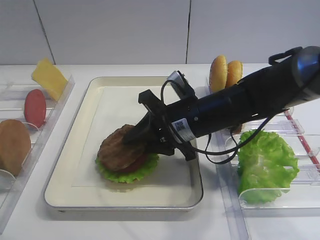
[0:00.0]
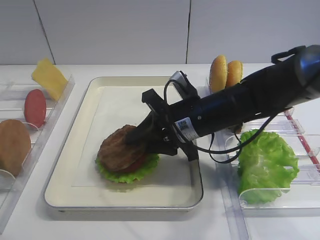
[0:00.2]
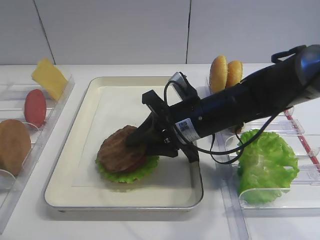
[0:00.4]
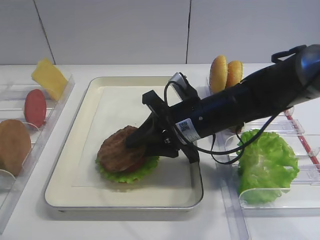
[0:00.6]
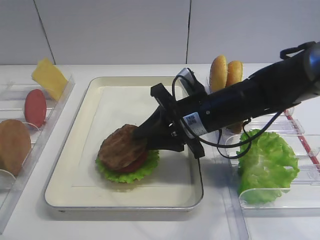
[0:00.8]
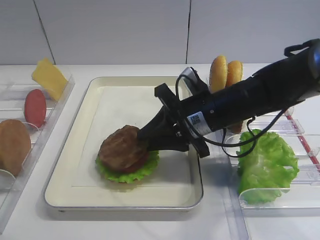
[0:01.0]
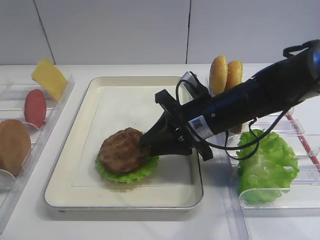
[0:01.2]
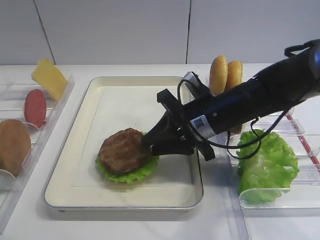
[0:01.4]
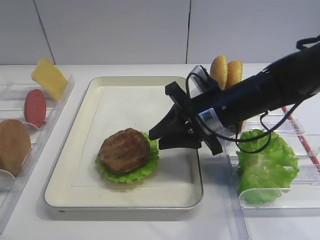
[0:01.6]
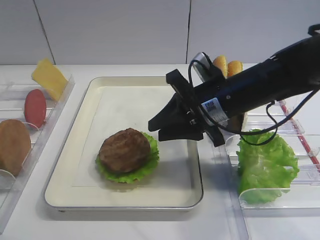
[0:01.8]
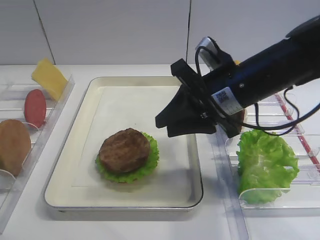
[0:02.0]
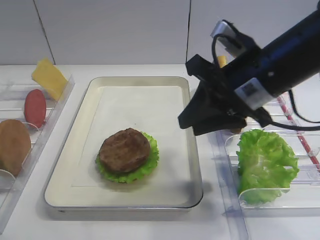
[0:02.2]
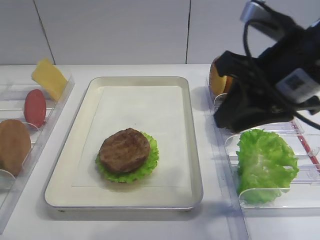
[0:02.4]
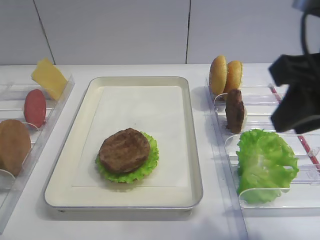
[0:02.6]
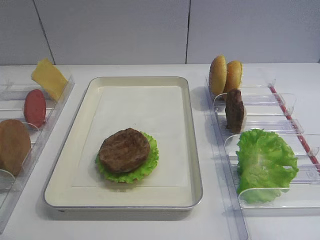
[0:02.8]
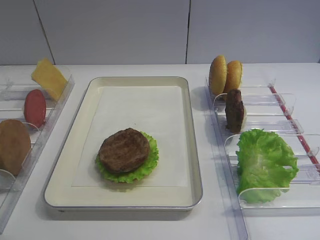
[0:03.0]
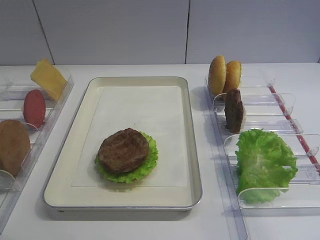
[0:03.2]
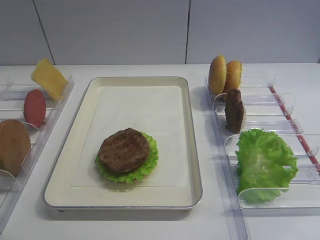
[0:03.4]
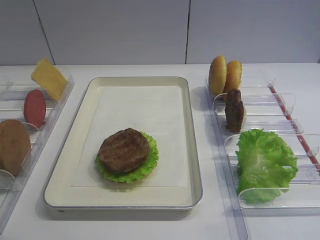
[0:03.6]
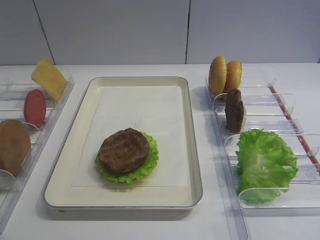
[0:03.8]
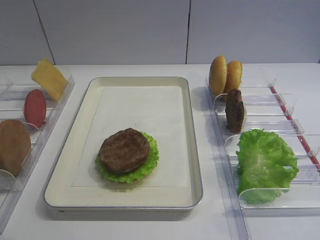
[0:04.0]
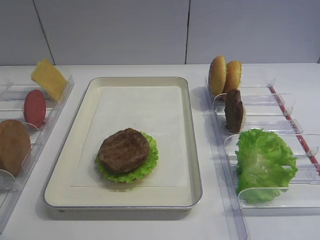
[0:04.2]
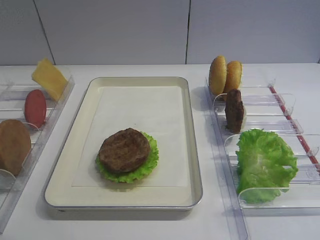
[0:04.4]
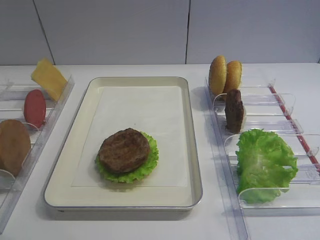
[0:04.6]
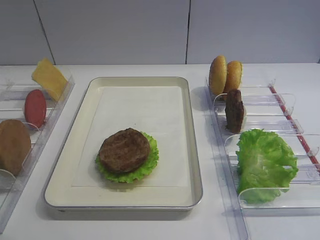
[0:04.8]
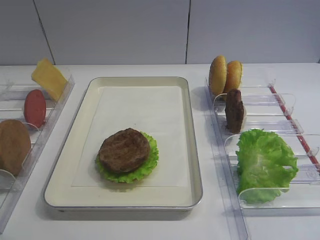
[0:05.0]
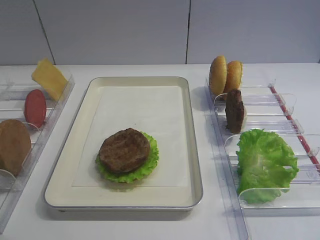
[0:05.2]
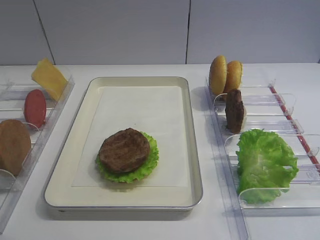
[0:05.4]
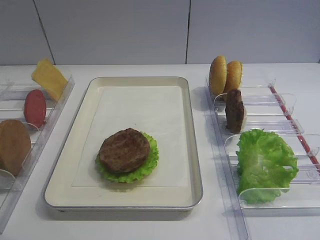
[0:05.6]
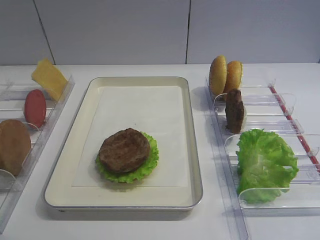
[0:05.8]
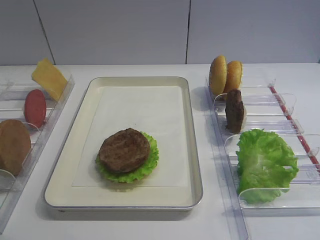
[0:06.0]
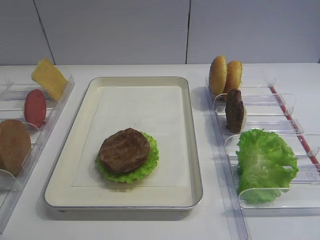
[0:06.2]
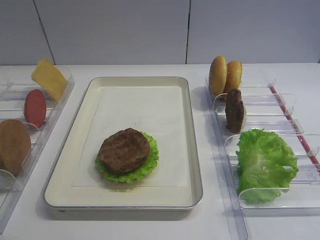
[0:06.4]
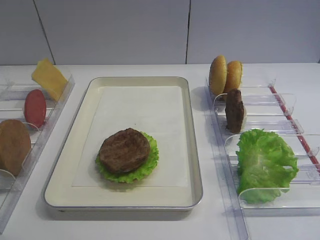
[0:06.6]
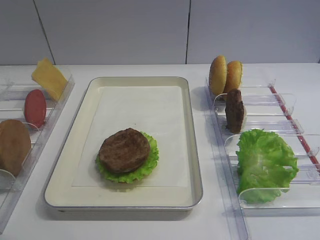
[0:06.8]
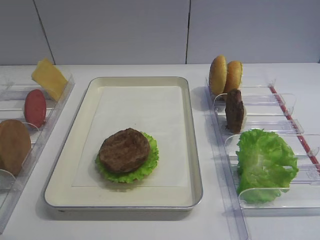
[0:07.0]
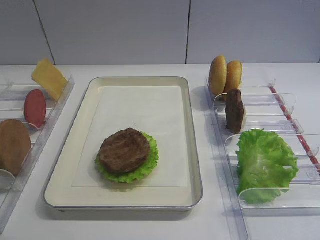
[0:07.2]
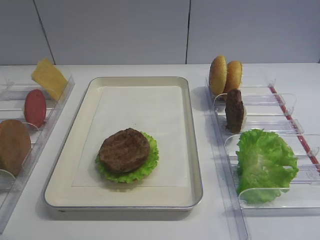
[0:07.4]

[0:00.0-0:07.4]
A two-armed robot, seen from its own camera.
0:00.0 to 0:01.4: The grippers move only a little.
0:01.4 to 0:03.0: The right gripper moves backward, upward and to the right, roughly 35 cm.
0:04.4 to 0:07.4: Both grippers stay about where they are.

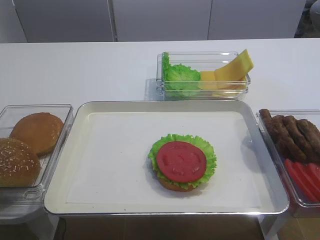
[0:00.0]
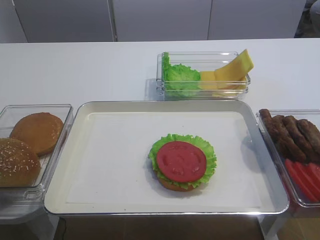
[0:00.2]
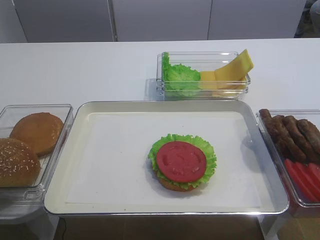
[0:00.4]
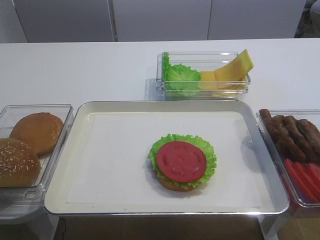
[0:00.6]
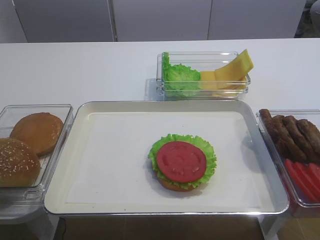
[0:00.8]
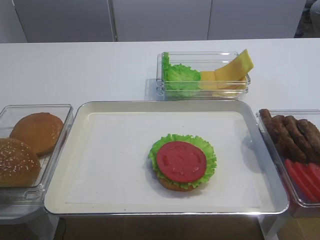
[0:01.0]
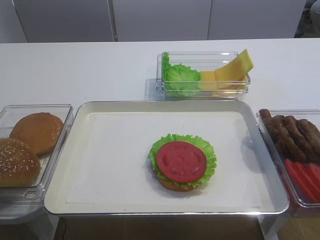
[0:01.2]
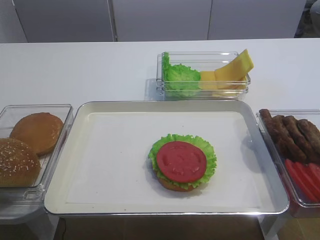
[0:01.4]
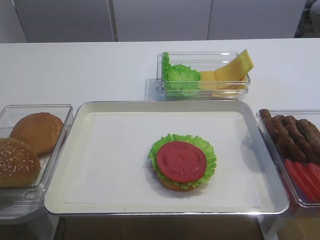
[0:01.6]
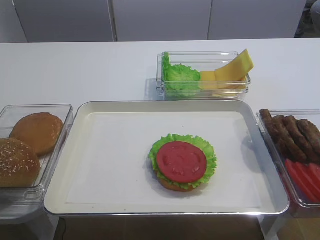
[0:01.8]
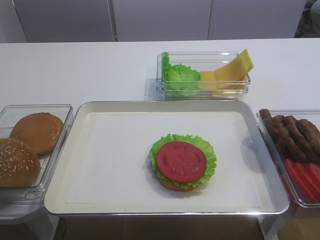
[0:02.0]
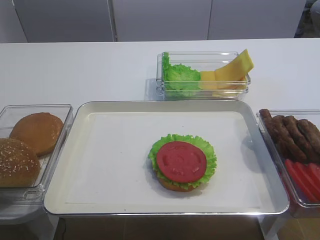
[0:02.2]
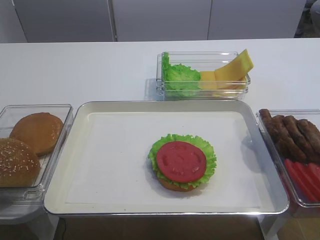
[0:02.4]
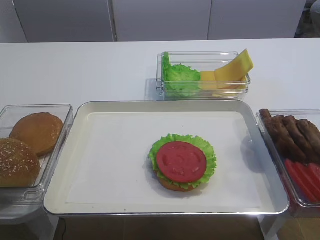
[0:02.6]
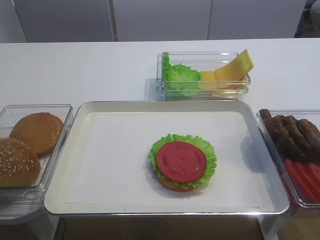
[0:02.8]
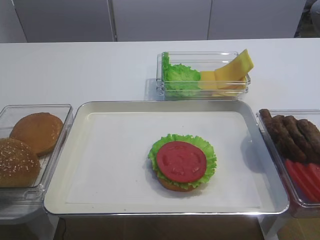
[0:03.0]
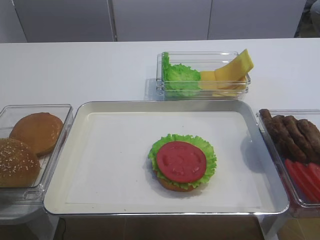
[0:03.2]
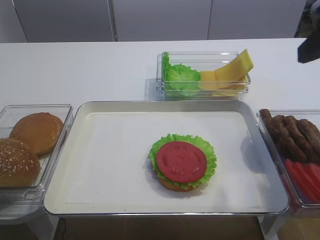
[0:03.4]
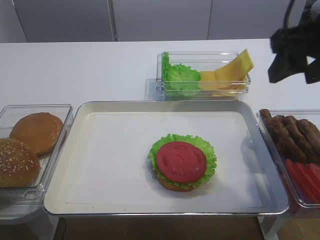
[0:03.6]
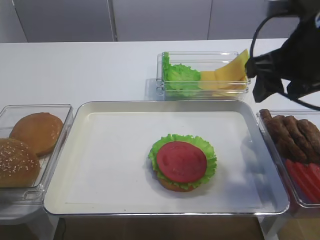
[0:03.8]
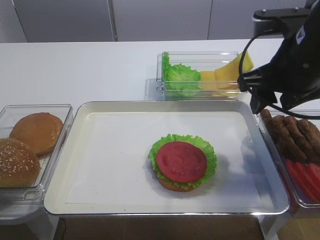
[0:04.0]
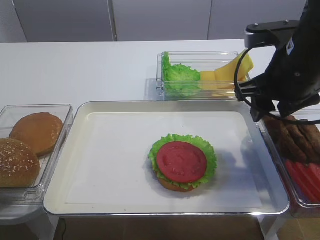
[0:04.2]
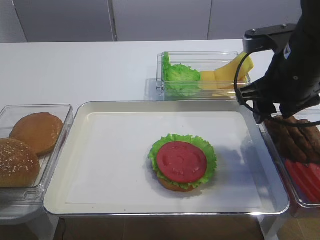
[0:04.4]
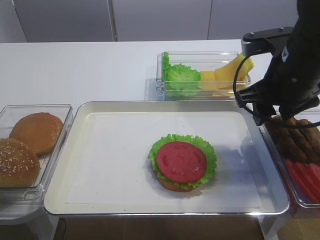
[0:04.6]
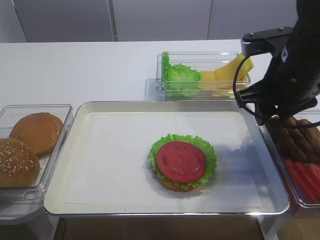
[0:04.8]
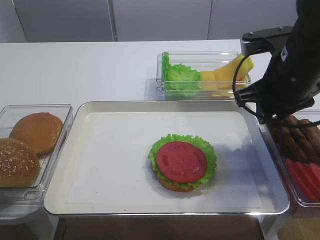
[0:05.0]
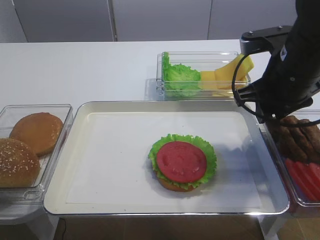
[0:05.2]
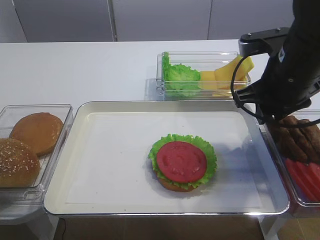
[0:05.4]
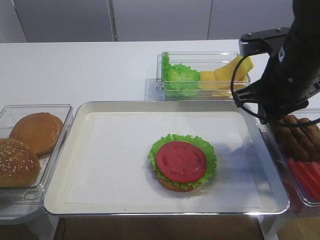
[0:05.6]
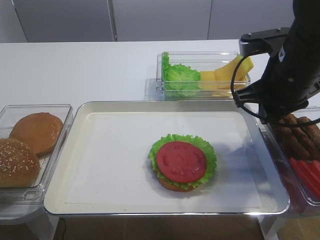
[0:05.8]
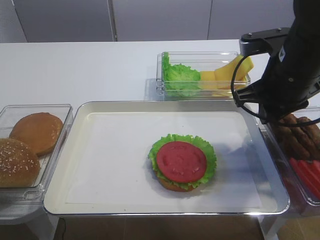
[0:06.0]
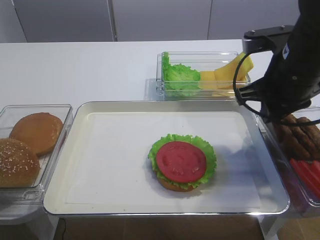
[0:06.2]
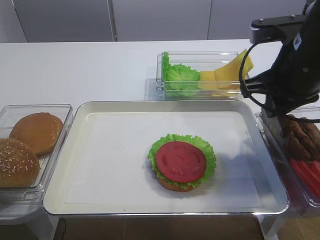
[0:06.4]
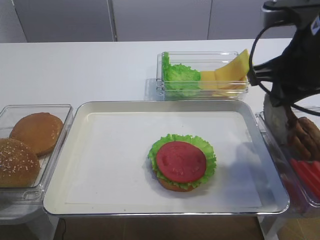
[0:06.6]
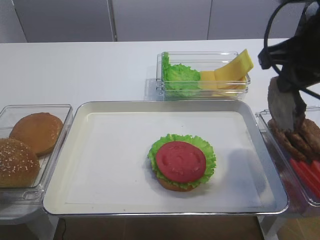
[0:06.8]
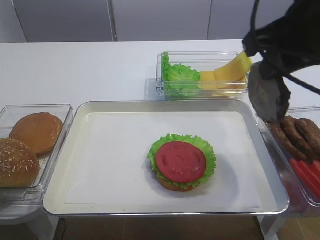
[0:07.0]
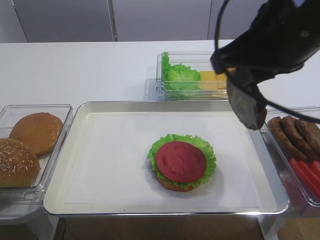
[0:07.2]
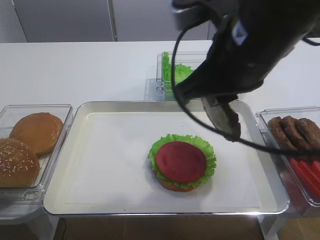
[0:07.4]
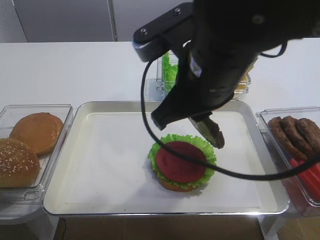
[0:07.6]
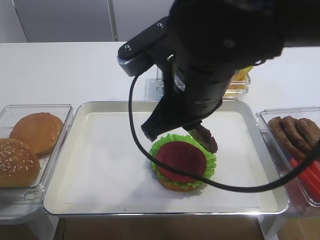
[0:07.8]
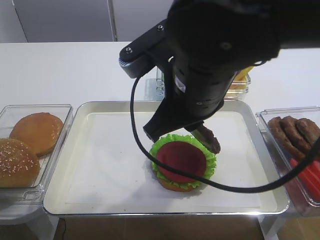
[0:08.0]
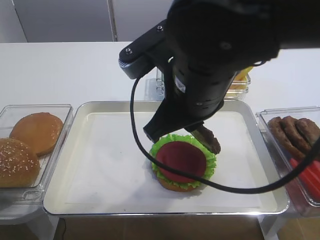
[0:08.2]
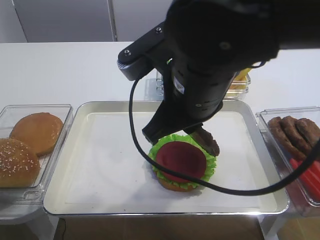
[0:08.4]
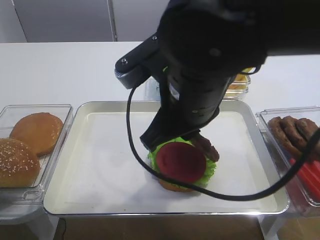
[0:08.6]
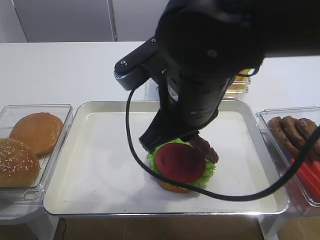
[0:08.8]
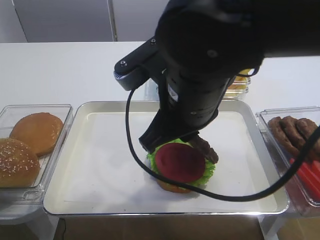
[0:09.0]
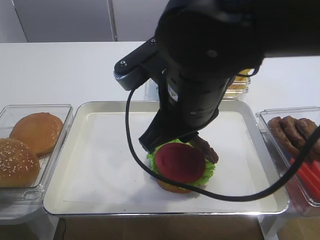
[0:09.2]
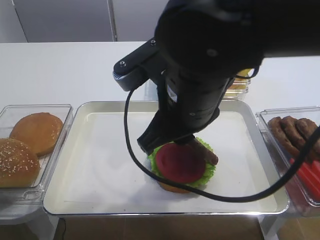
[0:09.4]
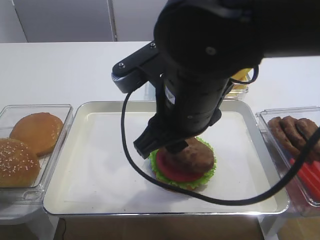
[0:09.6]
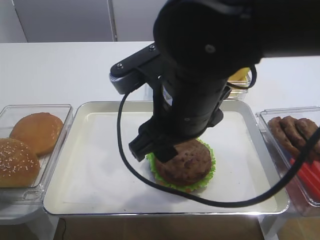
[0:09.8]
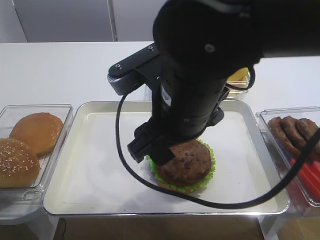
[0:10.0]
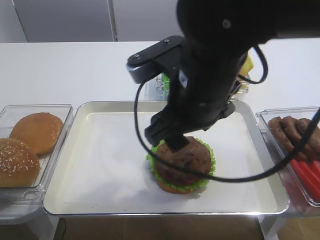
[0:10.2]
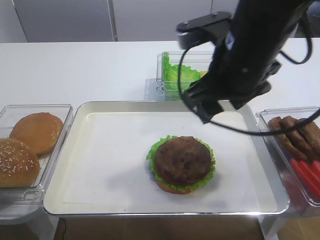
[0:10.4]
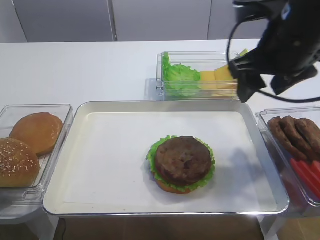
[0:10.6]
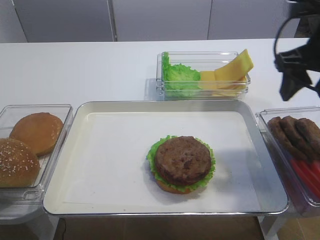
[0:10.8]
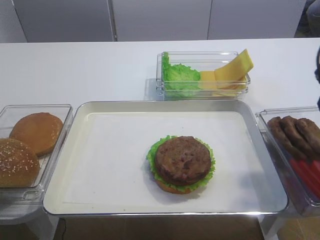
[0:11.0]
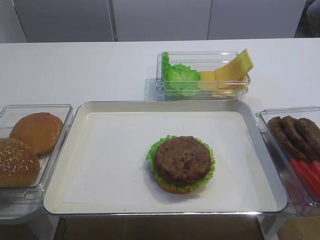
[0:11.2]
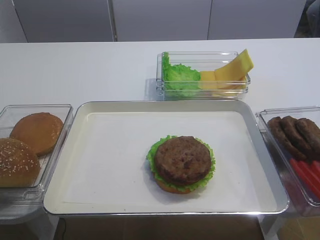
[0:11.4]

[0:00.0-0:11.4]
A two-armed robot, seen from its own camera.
Step, 0:00.0 to 0:06.6: Pick up the cutlet with the right gripper.
Step, 0:07.0 to 0:10.0: Place the cutlet on the tomato slice with the right gripper.
0:02.8 to 0:04.2: The right gripper travels forward and to the left by roughly 20 cm.
0:04.2 to 0:05.6: The right gripper closes up.
0:05.6 to 0:07.2: The right gripper is displaced upward and backward by approximately 10 cm.
0:07.2 to 0:08.6: The right gripper travels to the left and downward by about 10 cm.
0:08.6 to 0:10.0: The right gripper opens up.
0:10.0 to 0:11.4: The right gripper travels to the right by roughly 25 cm.

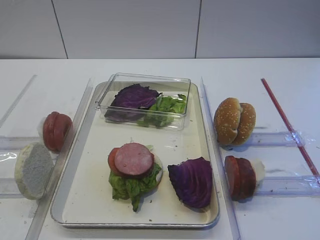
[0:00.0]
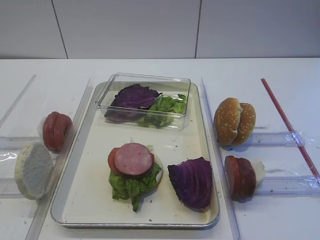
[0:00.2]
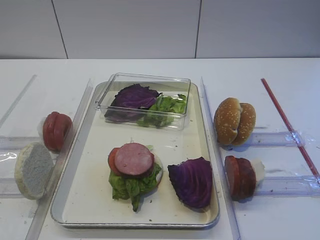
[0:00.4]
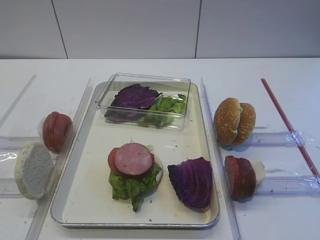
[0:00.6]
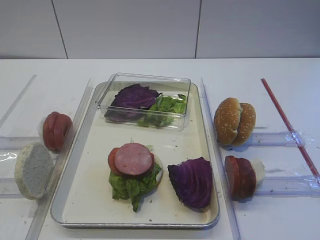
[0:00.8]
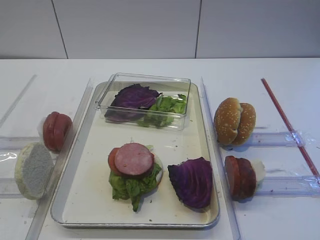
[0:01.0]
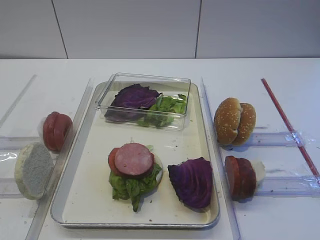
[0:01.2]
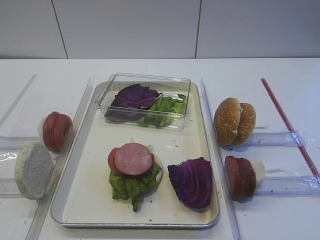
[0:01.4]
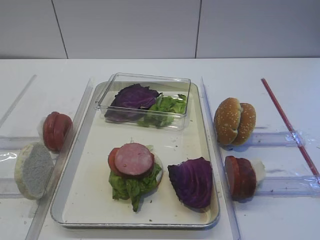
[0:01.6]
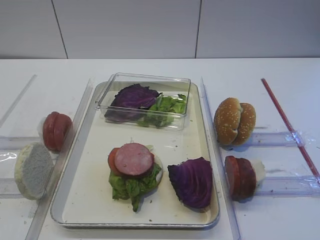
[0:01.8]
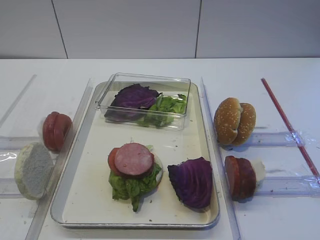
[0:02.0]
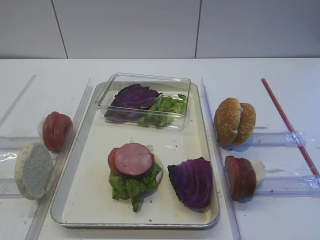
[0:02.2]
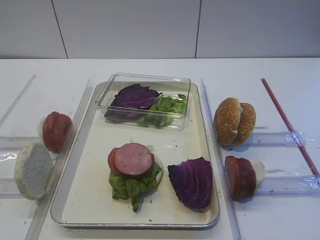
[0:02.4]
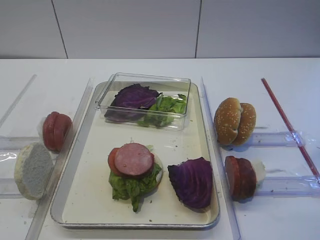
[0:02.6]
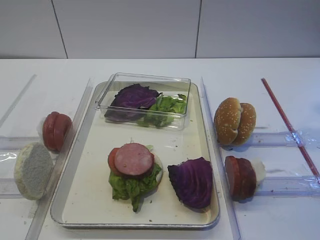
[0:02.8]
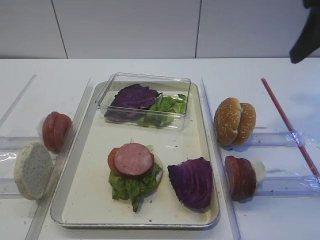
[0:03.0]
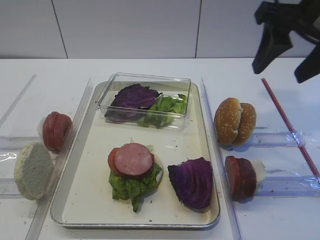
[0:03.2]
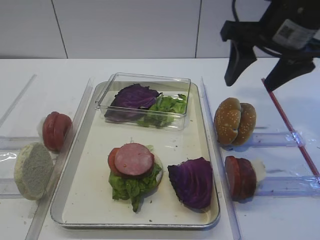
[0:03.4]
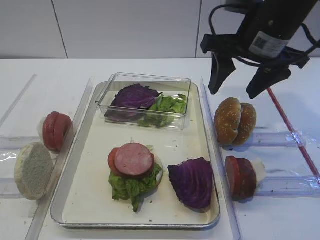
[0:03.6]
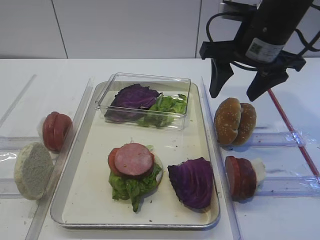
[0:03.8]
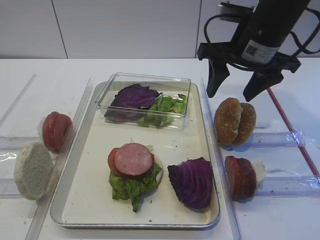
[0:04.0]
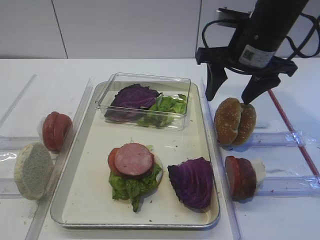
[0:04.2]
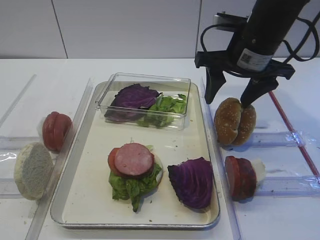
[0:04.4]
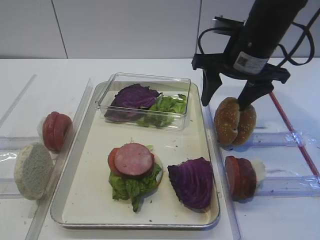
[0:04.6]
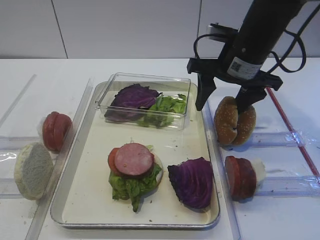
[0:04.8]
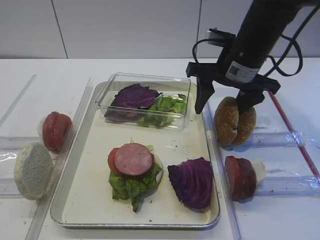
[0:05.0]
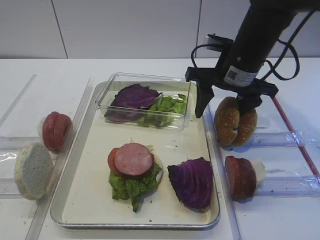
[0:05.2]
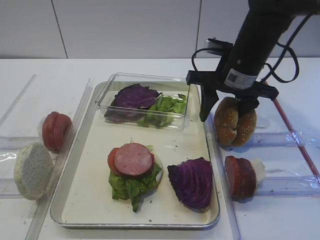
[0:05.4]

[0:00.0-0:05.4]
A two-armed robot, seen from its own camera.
0:02.8 to 0:04.0: The right gripper goes approximately 20 cm forward, to the left and downward.
0:04.0 to 0:05.4: The right gripper goes about 5 cm downward.
